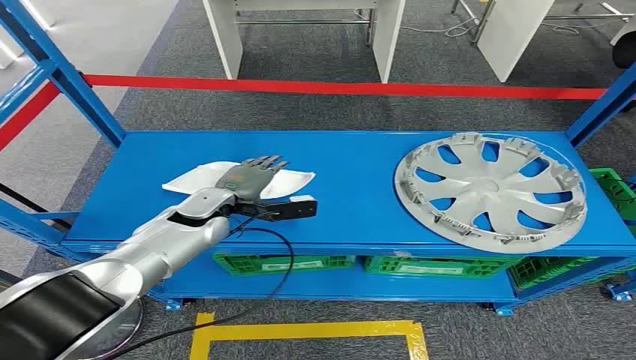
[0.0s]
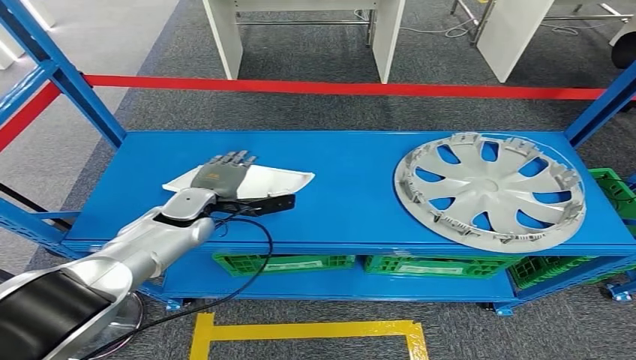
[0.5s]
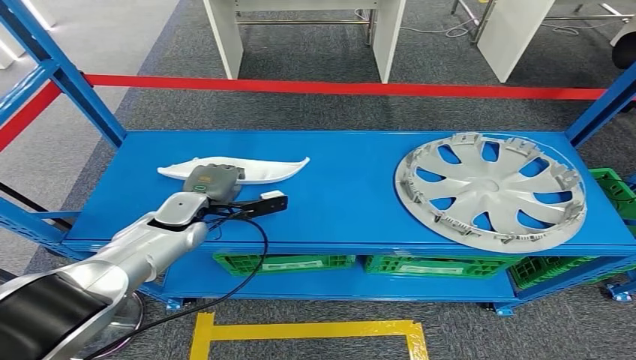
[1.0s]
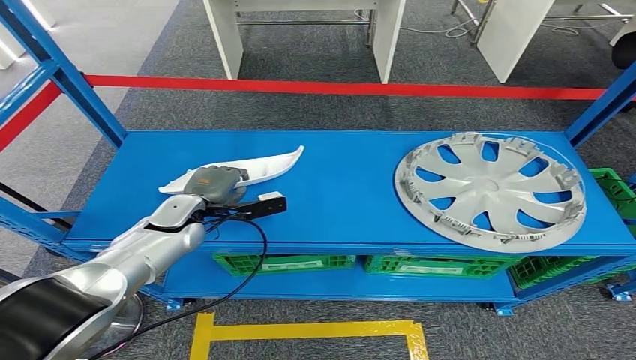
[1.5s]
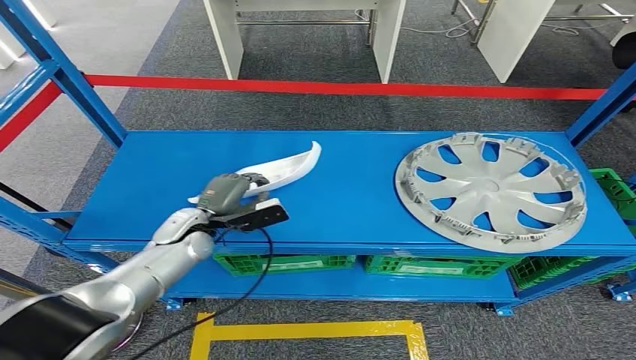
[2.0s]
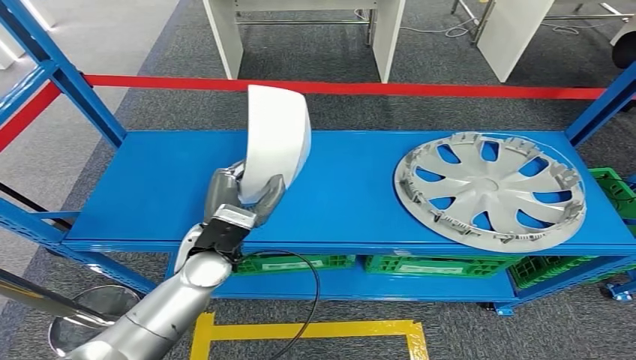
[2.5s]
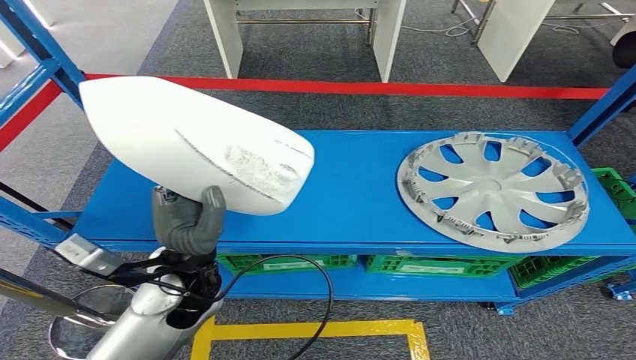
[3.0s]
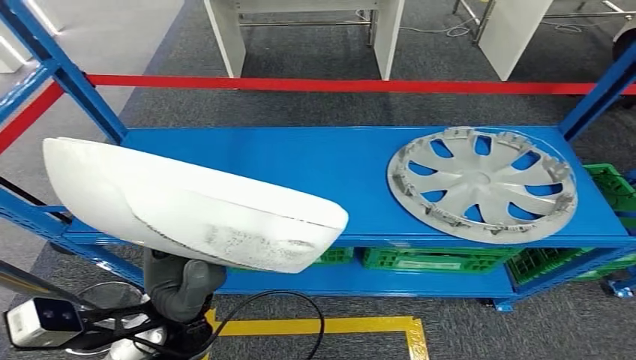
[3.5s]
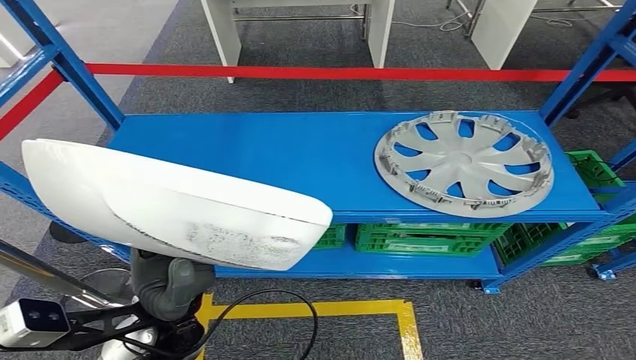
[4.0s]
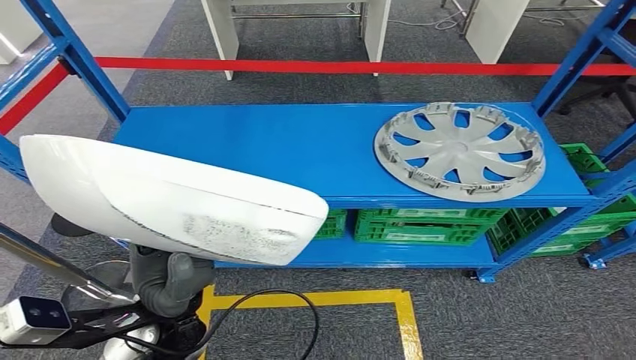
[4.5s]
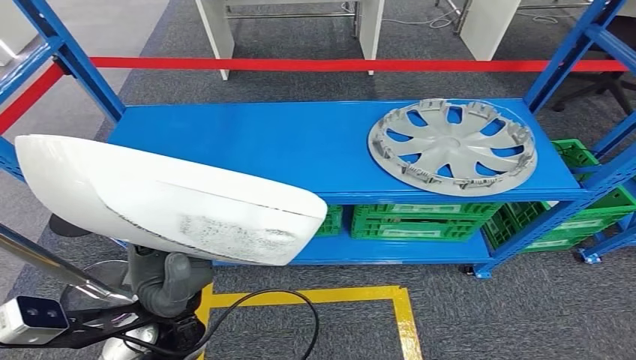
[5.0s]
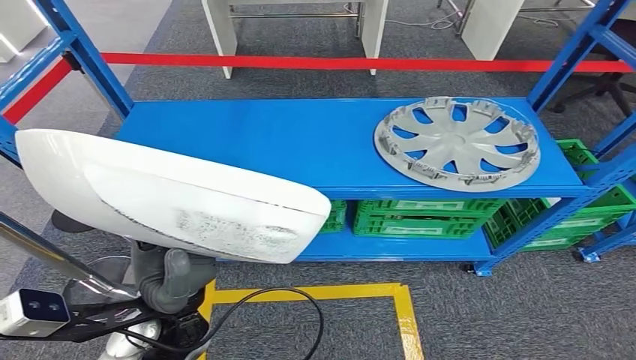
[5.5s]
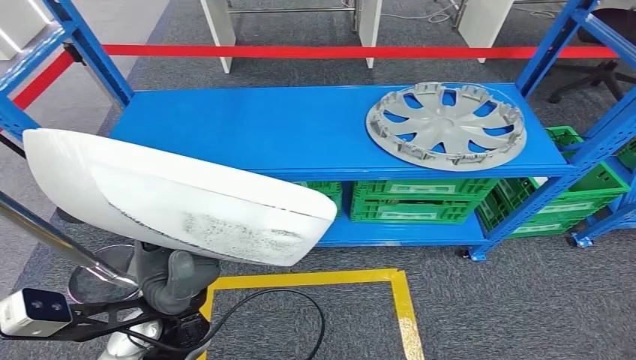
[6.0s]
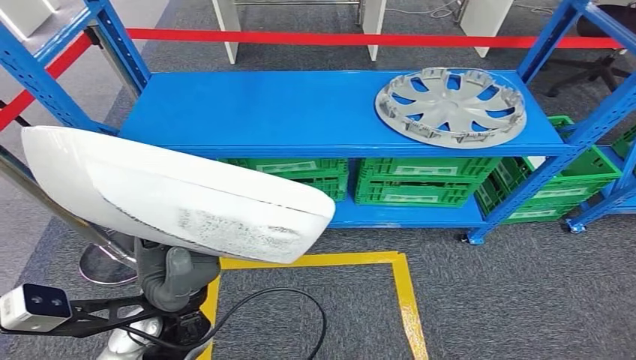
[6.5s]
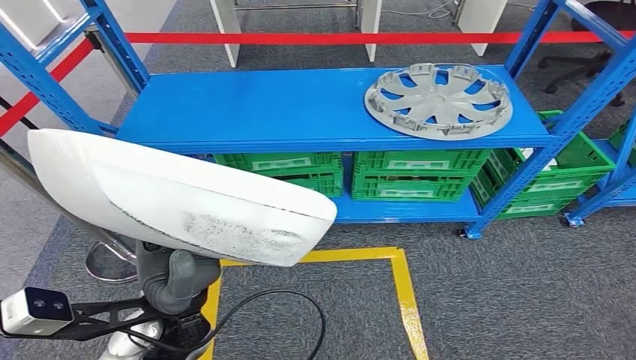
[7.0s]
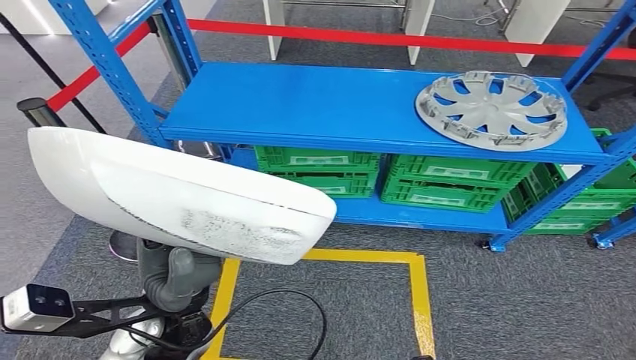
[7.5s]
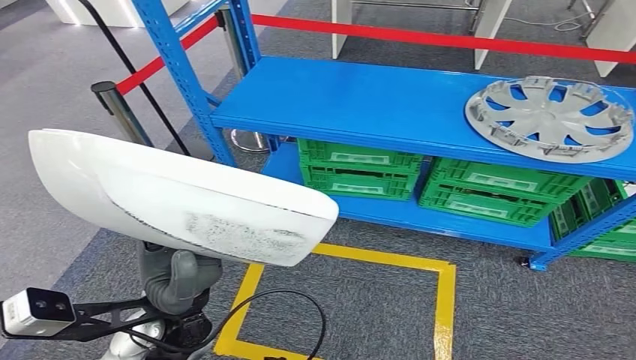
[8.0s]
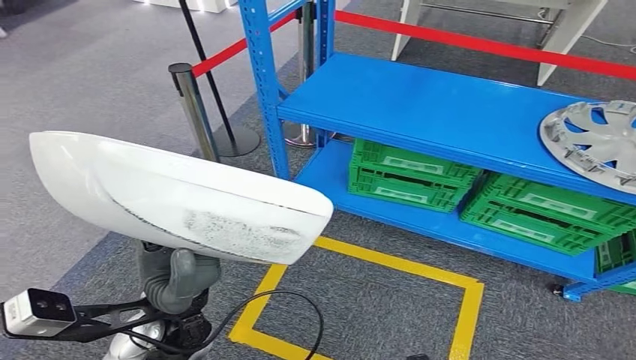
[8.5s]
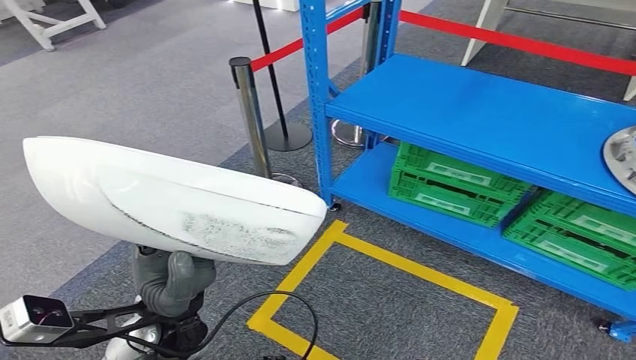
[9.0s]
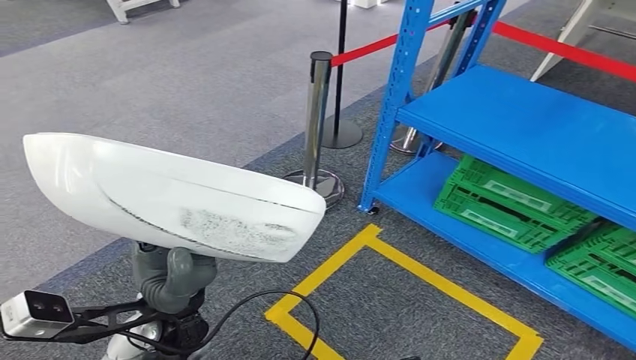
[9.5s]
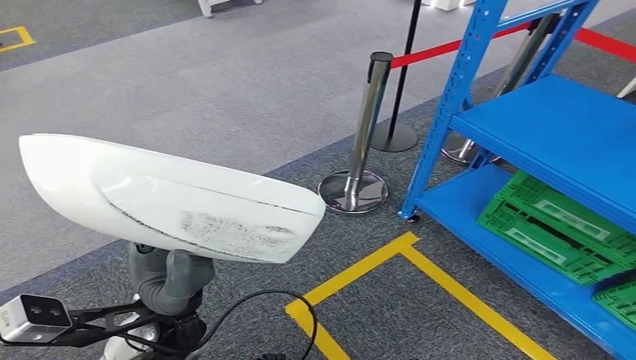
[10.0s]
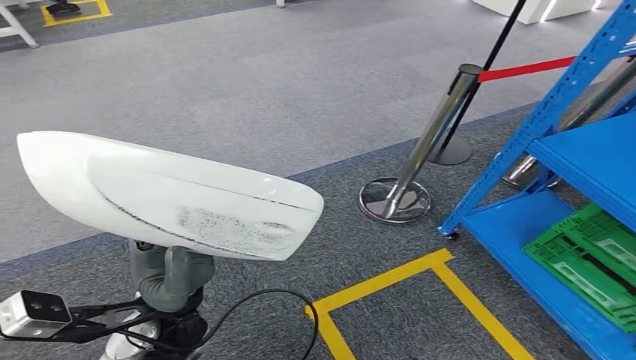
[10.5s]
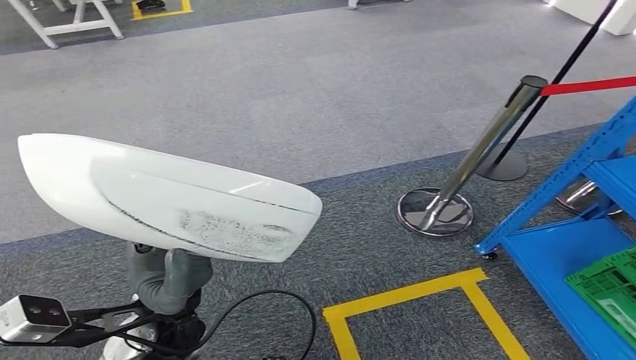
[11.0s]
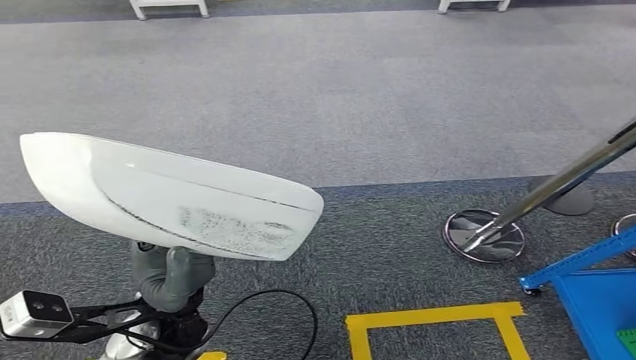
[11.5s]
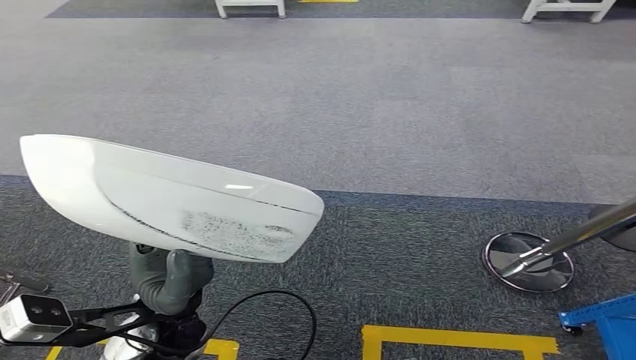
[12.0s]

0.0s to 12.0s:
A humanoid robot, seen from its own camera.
Step, 0.0s to 3.0s: Take small components from the rack.

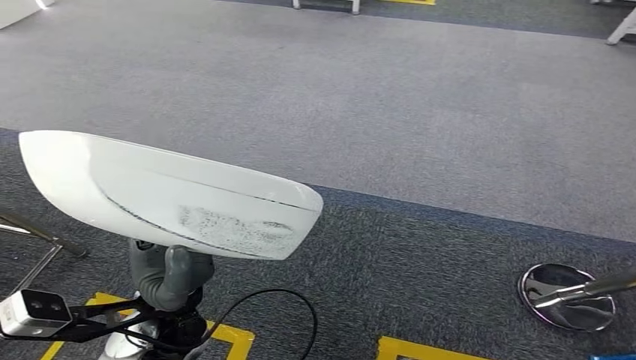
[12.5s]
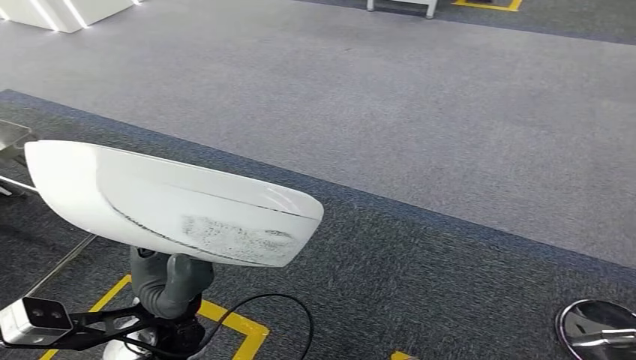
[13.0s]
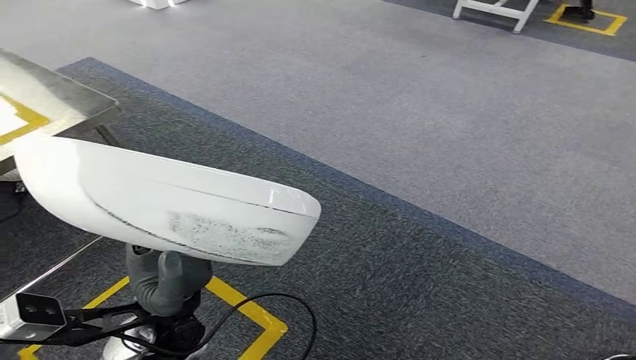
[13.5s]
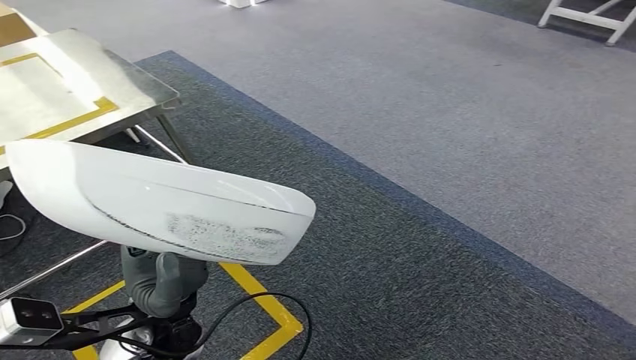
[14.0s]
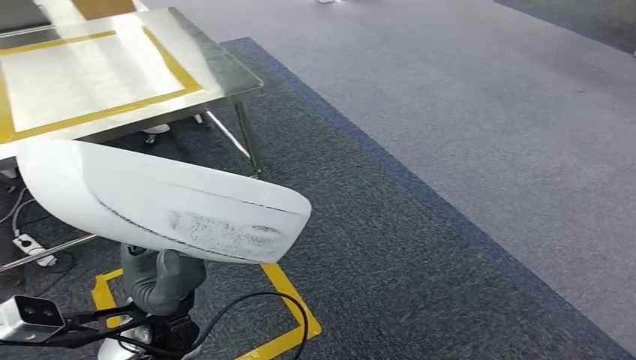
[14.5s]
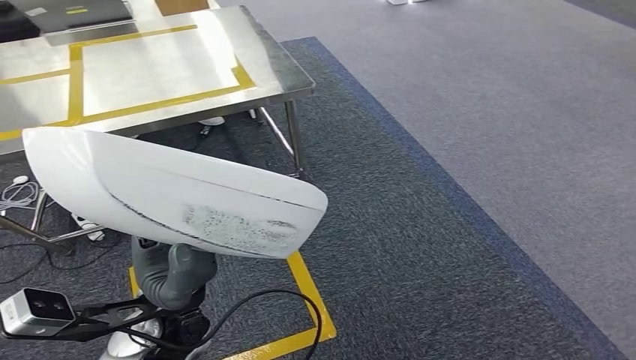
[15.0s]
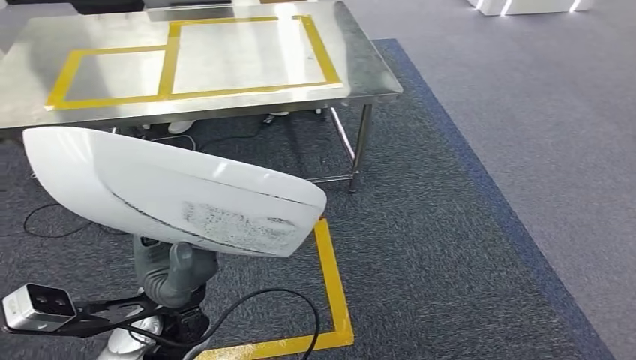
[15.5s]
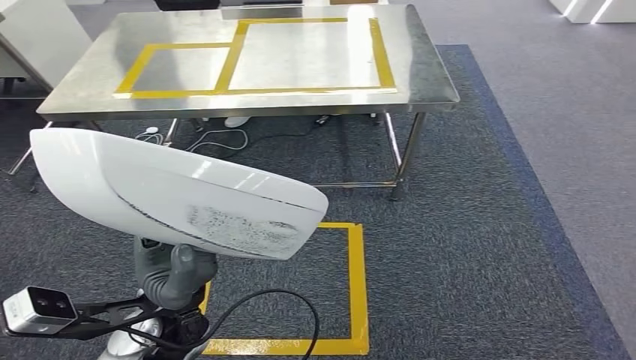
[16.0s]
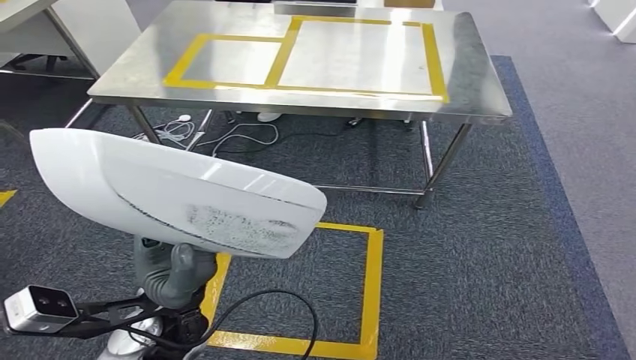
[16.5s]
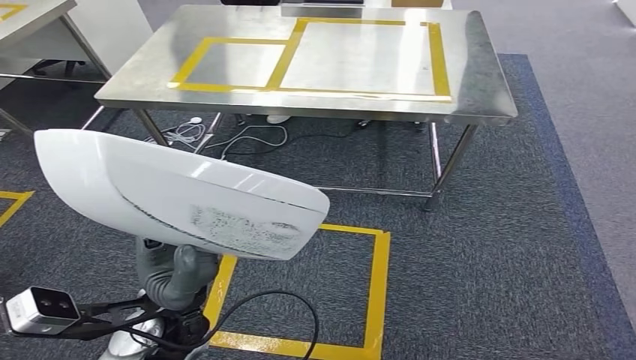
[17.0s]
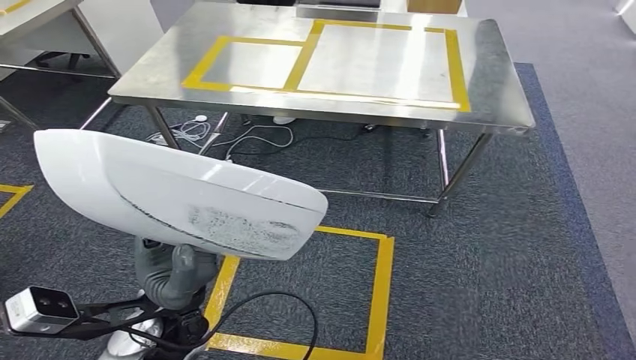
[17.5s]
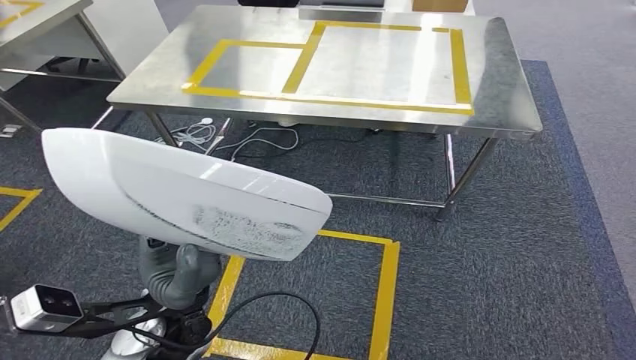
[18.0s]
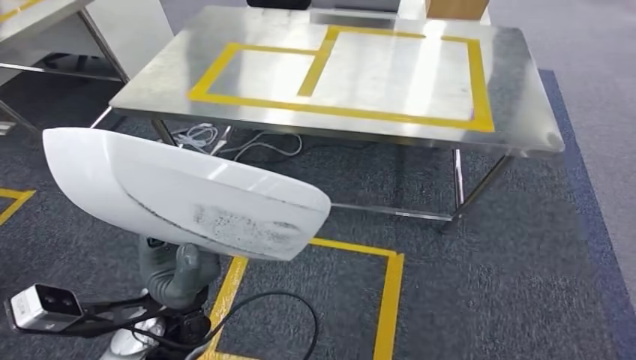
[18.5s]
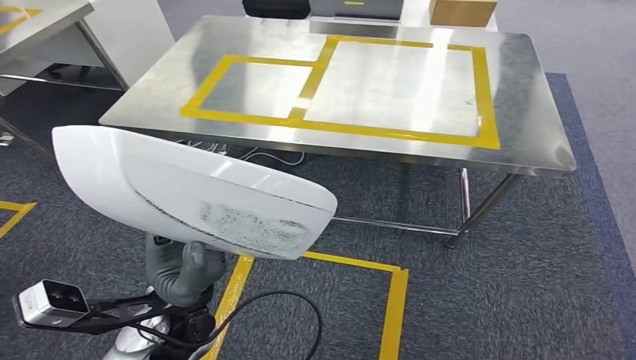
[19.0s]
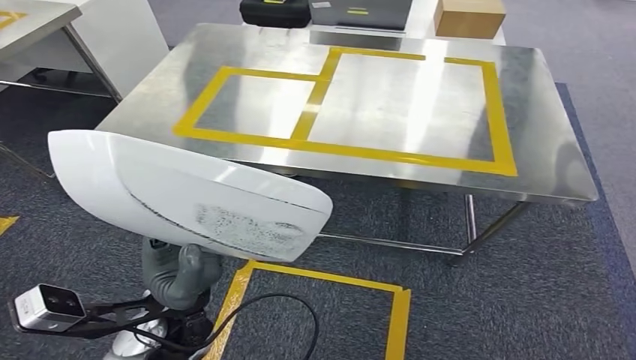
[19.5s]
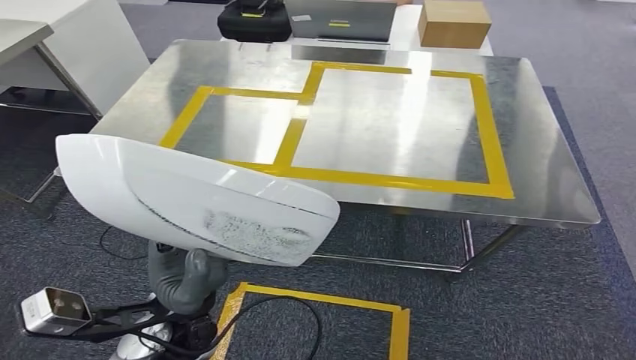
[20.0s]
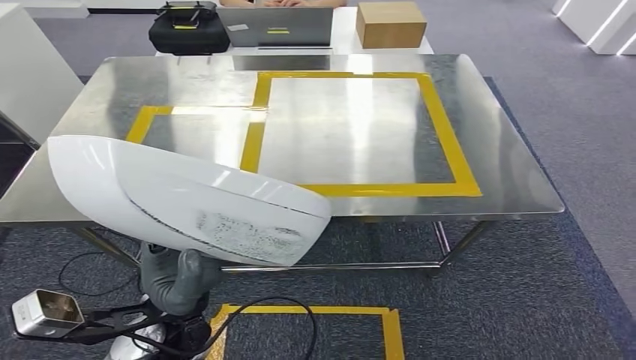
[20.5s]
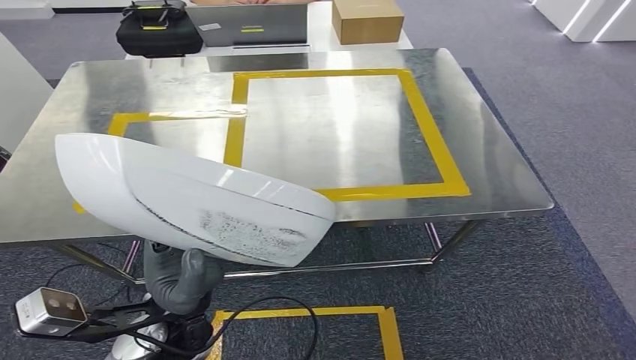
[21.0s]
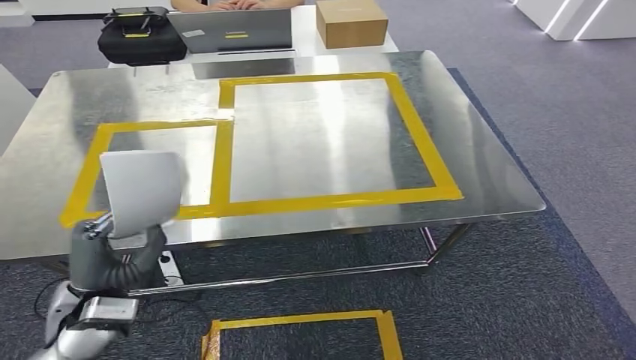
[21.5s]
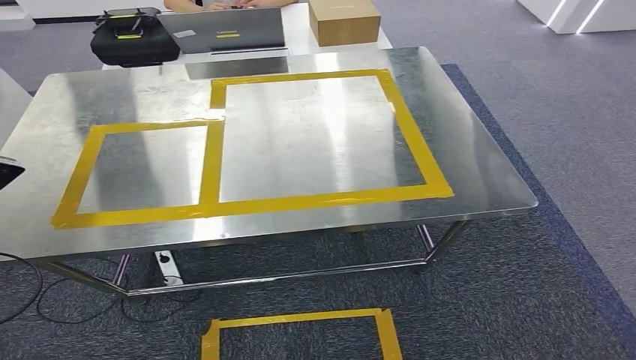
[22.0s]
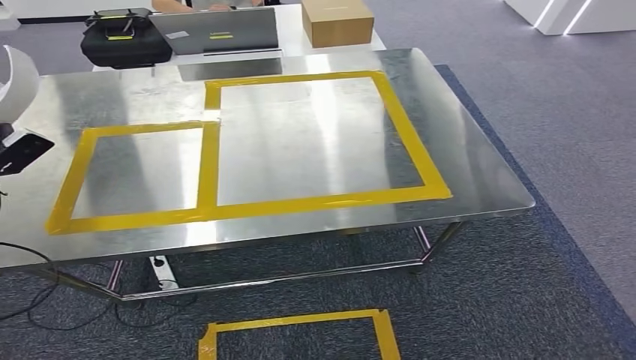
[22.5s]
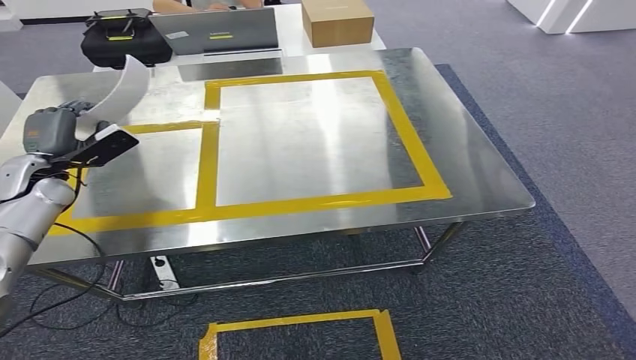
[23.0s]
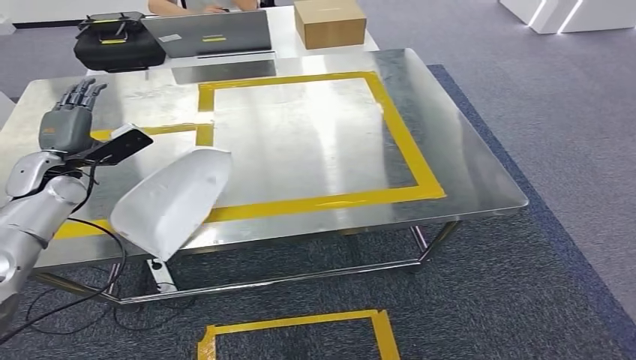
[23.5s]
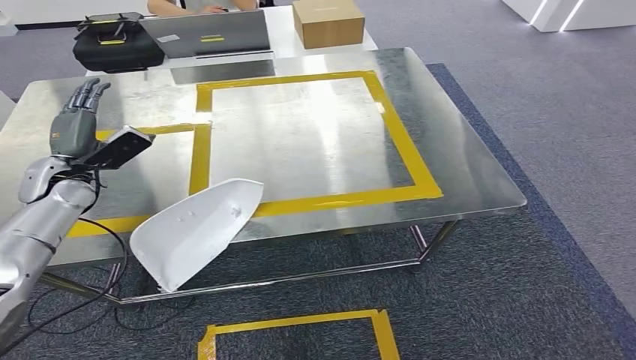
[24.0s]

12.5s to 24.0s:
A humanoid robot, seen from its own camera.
Step, 12.5s to 17.0s: Move the small parts to the workbench.
